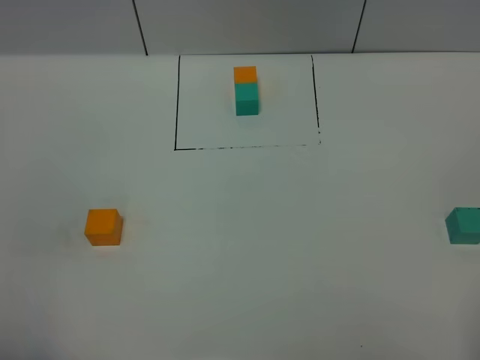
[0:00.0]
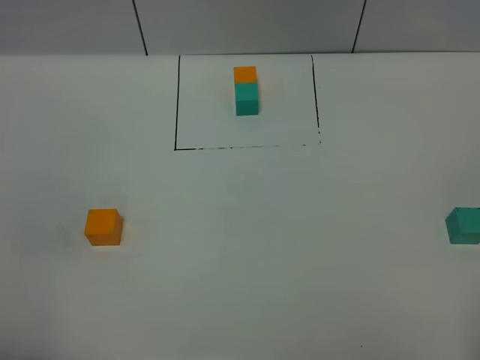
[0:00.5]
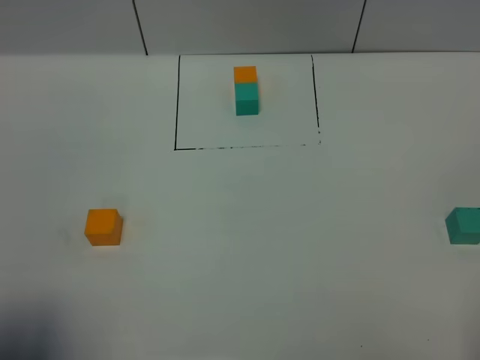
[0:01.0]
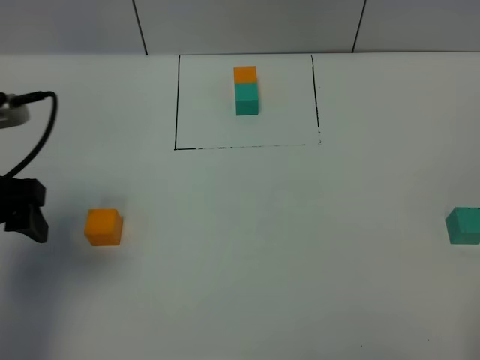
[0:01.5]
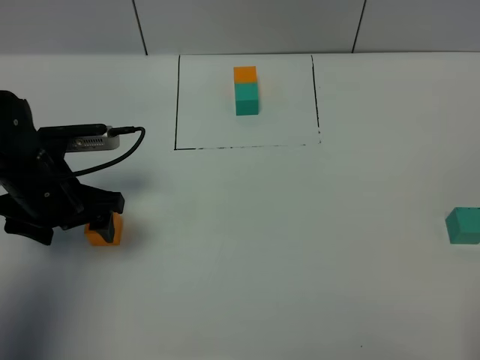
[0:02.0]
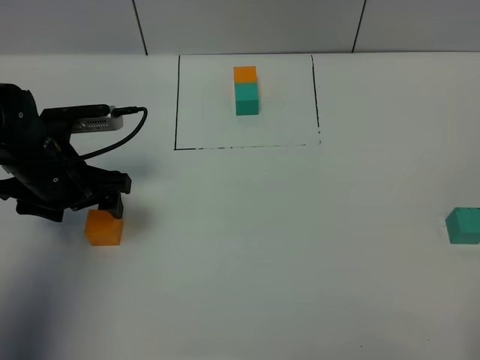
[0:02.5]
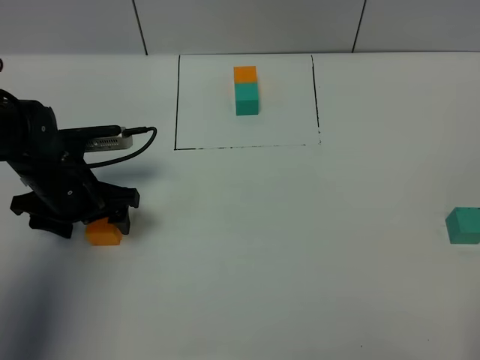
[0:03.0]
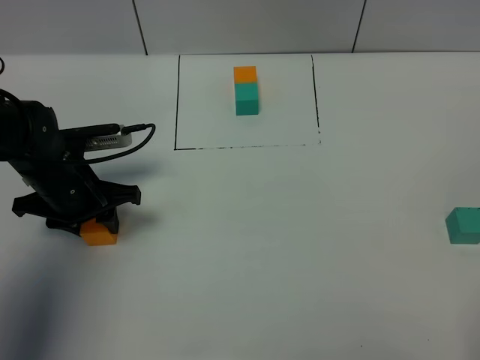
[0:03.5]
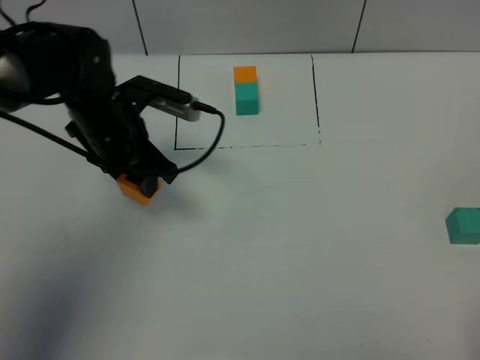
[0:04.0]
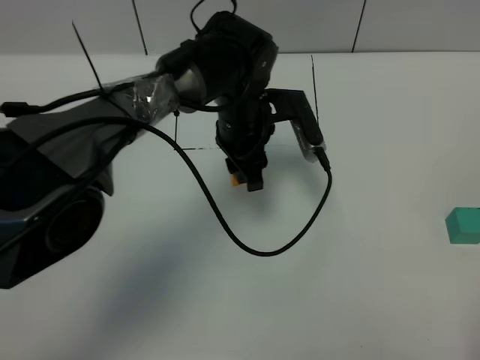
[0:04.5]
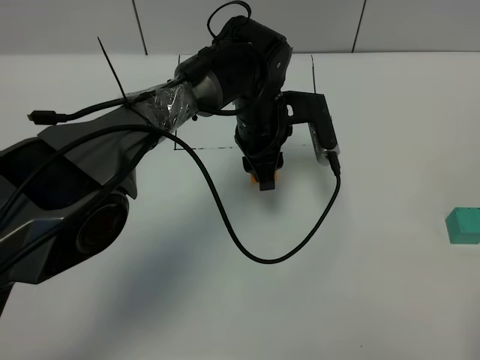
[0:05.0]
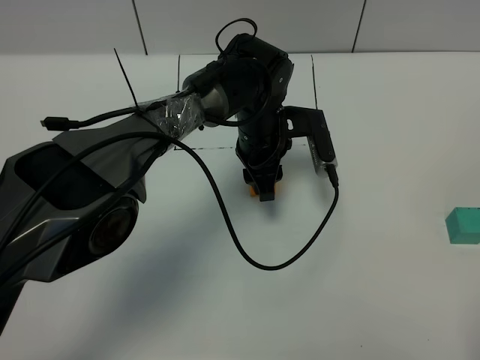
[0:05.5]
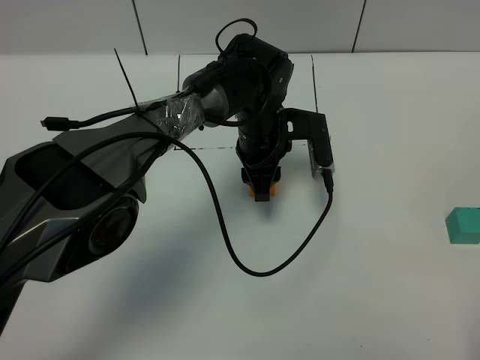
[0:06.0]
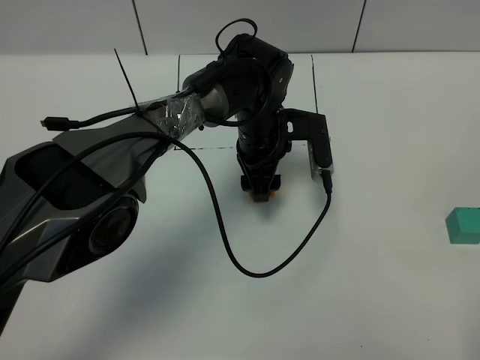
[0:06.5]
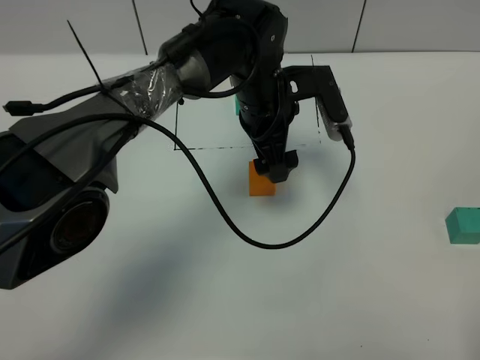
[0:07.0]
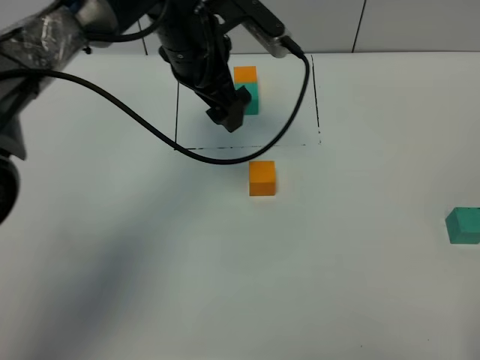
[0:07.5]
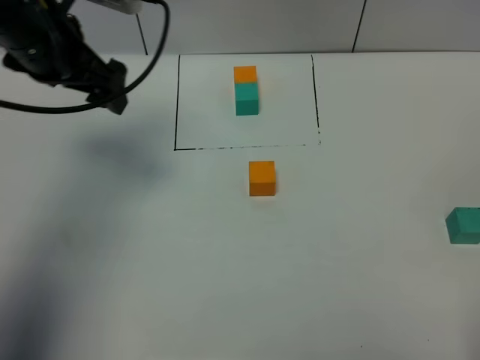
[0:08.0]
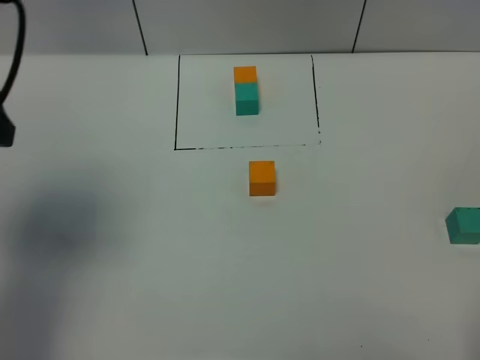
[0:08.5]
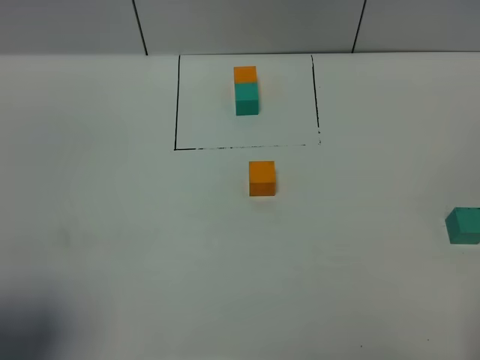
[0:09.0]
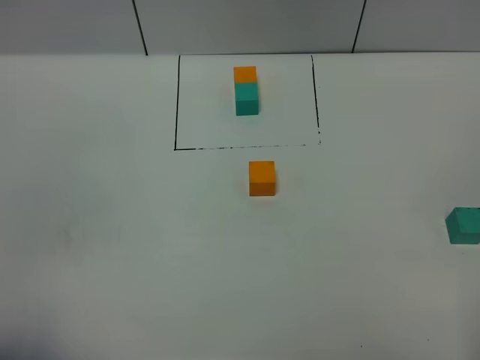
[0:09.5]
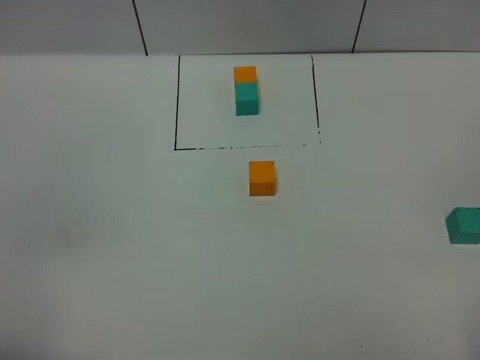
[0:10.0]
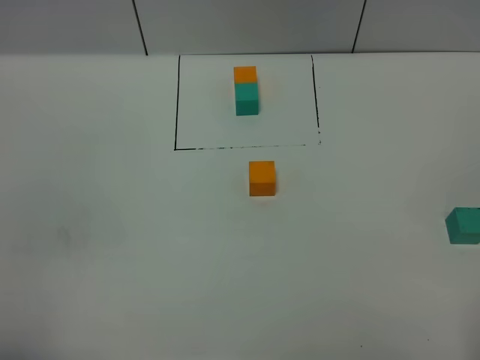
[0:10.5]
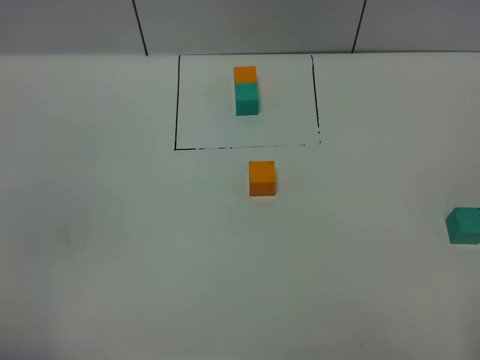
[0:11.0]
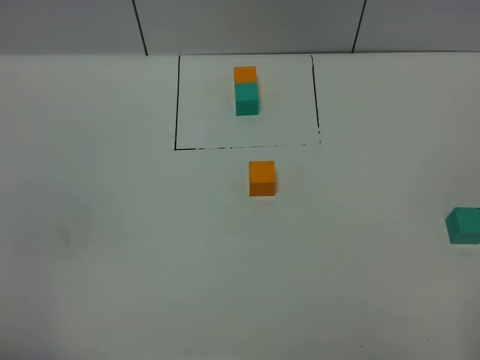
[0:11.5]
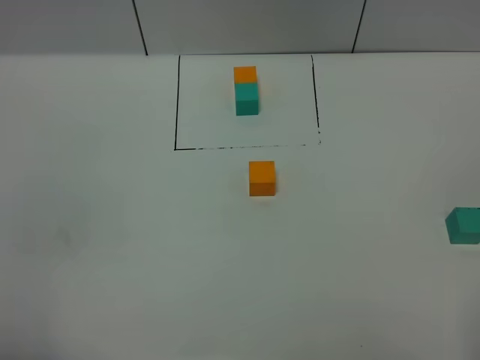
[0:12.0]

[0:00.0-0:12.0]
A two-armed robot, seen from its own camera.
Task of the whole recording: According to the building block template in front, assemble the scattered blocks together.
Step, 0:01.5 to 0:07.0: Put the orange cube in the center of the table.
0:00.0 to 0:02.0: The left gripper shifts some 30 cm forward.
0:02.0 to 0:04.0: The left gripper shifts roughly 10 cm to the right and forward, and closes up.
0:04.0 to 0:06.0: The left gripper heads to the right, covering about 15 cm.
0:06.0 to 0:08.0: The left gripper is displaced to the left and upward by about 30 cm, and opens its fingers.
0:08.0 to 0:10.0: The left gripper moves backward, roughly 40 cm.

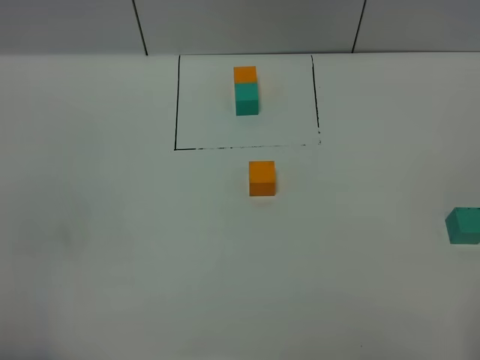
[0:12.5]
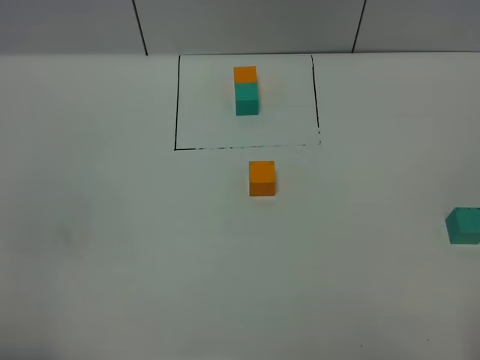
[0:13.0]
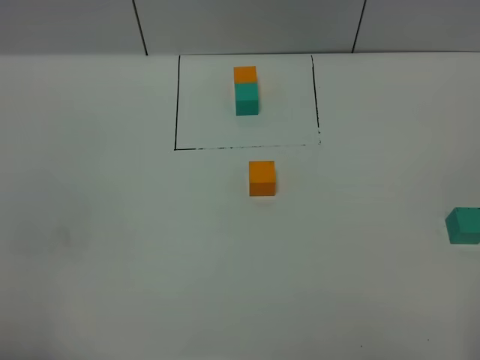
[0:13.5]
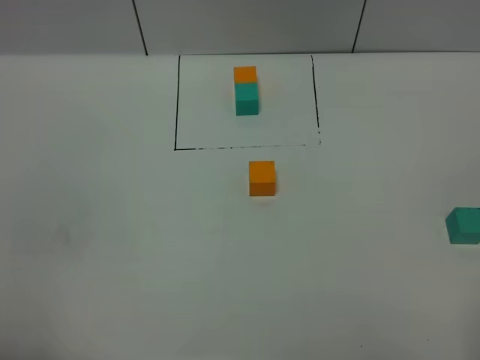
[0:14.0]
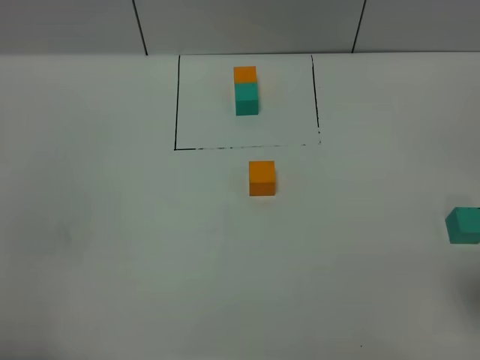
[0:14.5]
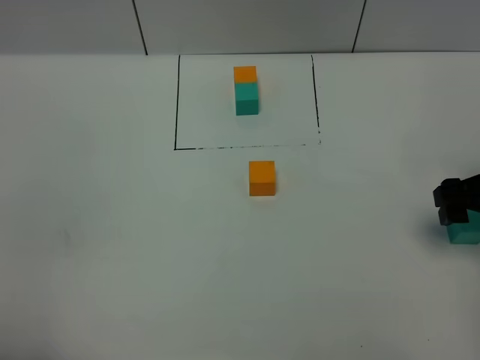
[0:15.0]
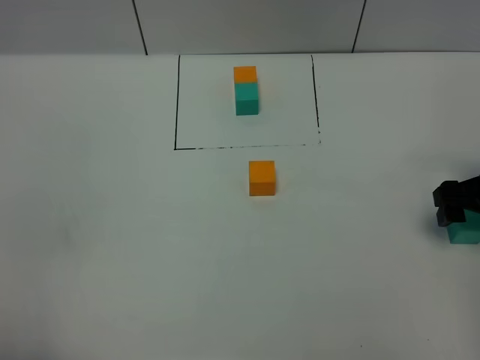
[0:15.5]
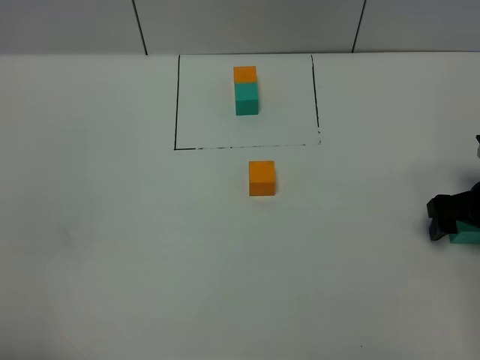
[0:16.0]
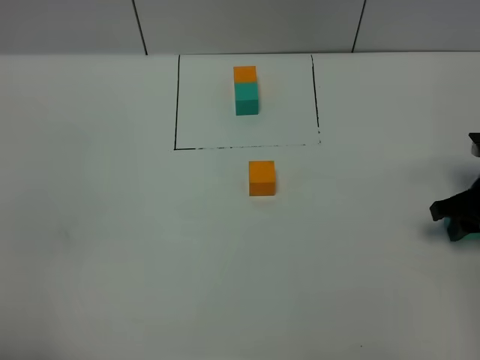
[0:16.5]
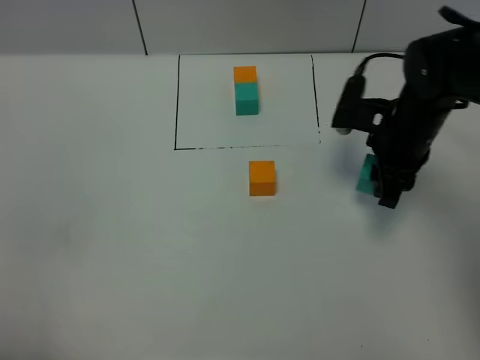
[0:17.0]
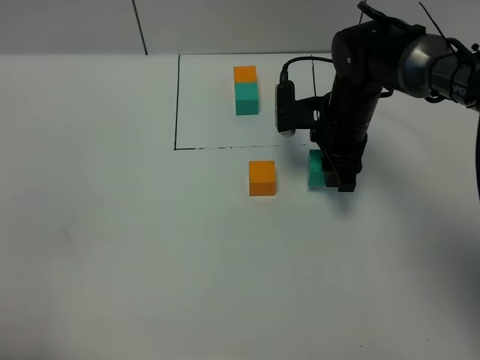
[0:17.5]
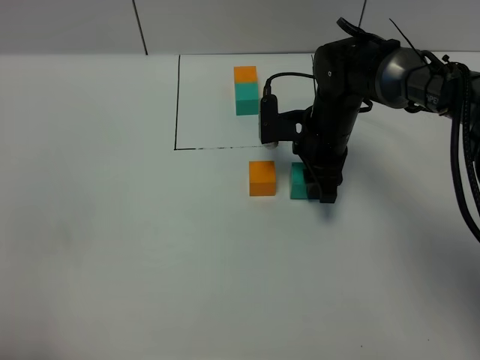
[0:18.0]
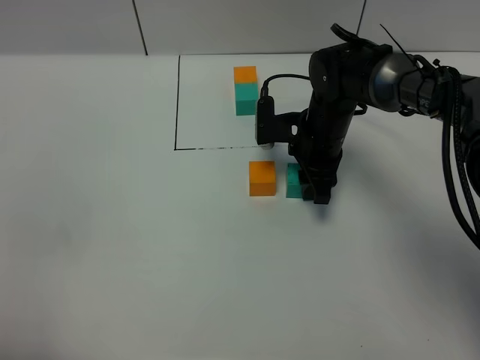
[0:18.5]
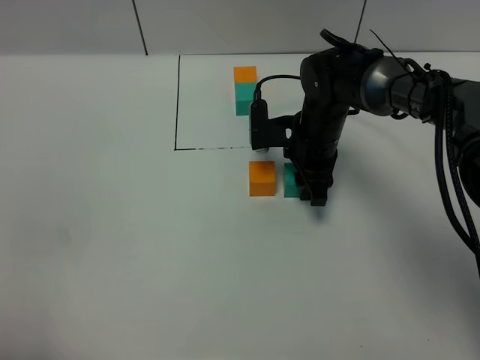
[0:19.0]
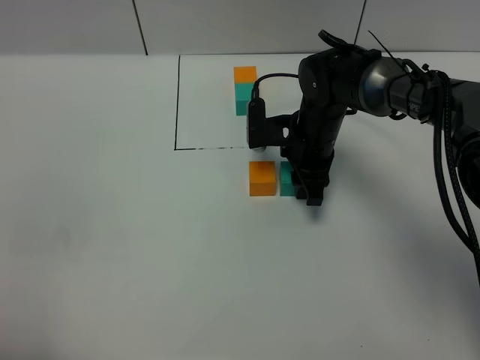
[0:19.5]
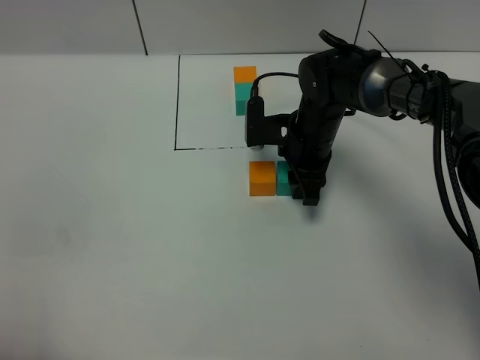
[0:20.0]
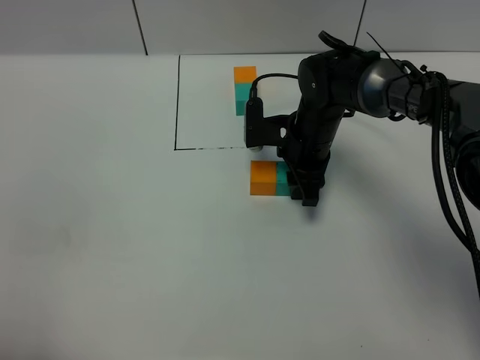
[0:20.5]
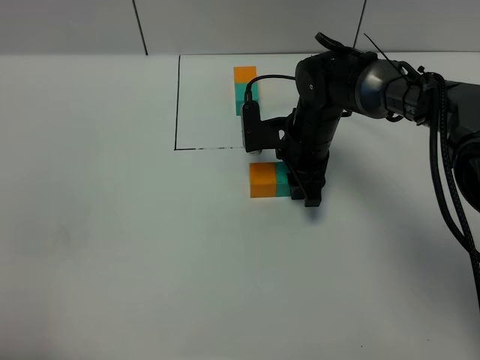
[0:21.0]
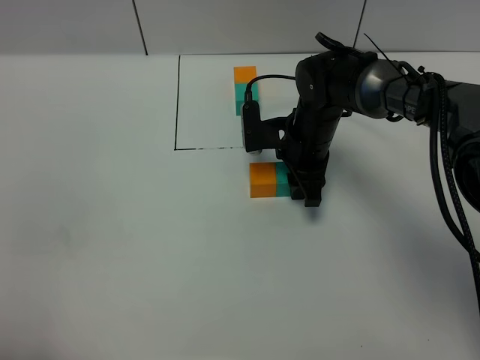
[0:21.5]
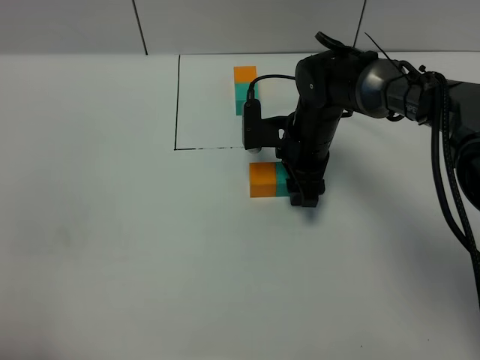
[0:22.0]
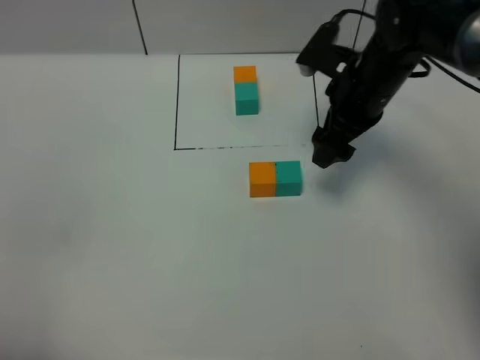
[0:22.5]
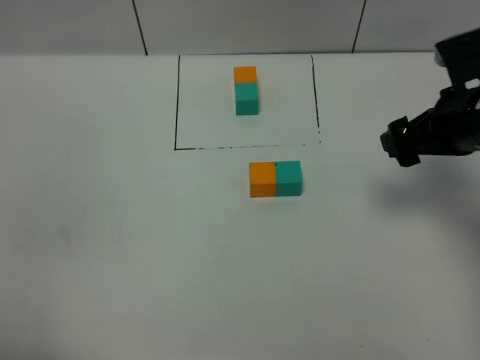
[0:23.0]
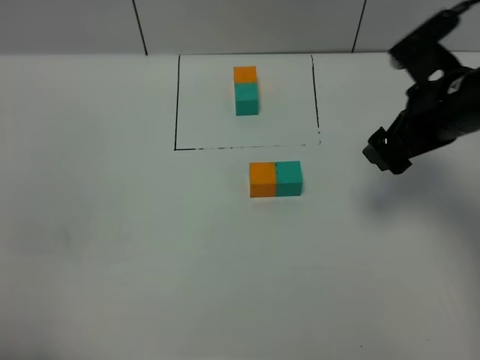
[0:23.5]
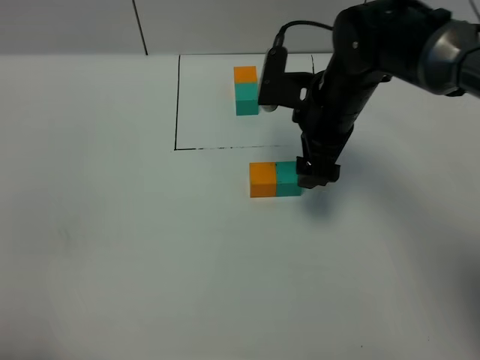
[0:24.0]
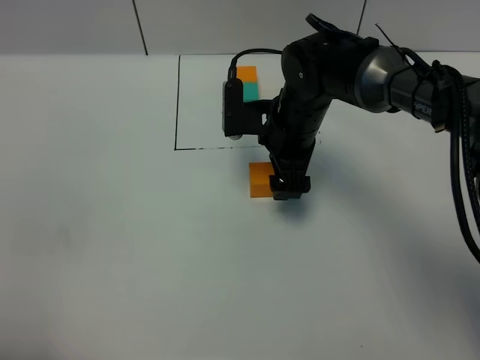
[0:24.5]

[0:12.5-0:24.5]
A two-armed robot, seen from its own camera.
Task of the whole recording: According to the building block template in front, assemble the scattered blocks together.
Step, 0:12.5 to 0:22.5: Put the green cube on the right of the orange cube.
0:14.5 to 0:16.5: The right gripper goes some 20 cm forward and downward, and closes up.
0:16.5 to 0:18.5: The right gripper travels to the left and forward by some 25 cm.
0:18.5 to 0:20.5: The grippers move only a little.
0:20.5 to 0:22.5: The right gripper is displaced upward and to the right by some 10 cm, and opens up.
0:22.5 to 0:24.5: The right gripper shifts some 10 cm to the left.

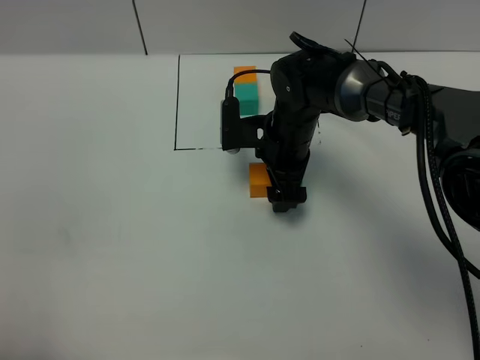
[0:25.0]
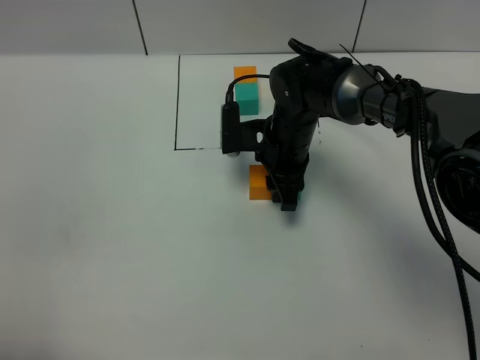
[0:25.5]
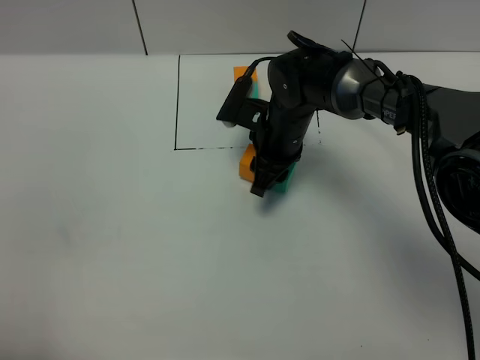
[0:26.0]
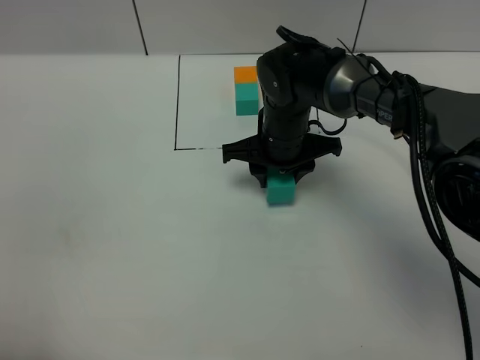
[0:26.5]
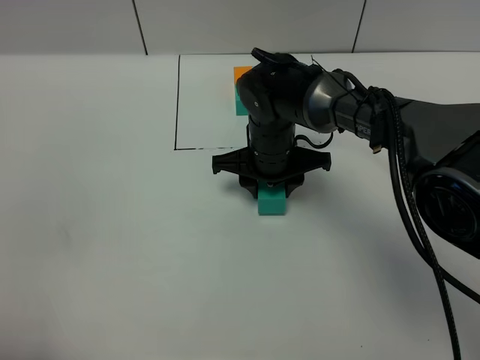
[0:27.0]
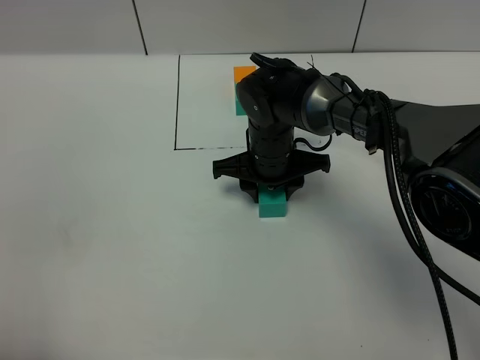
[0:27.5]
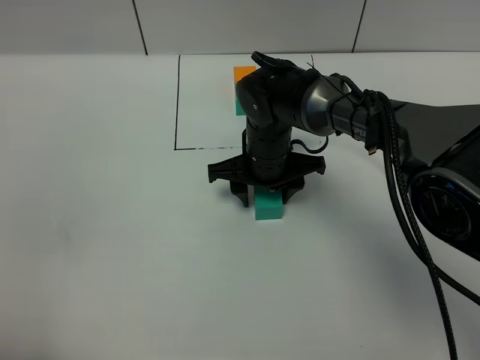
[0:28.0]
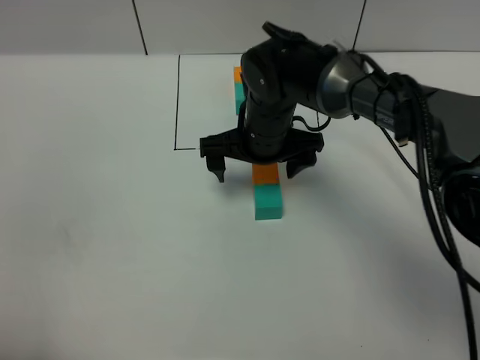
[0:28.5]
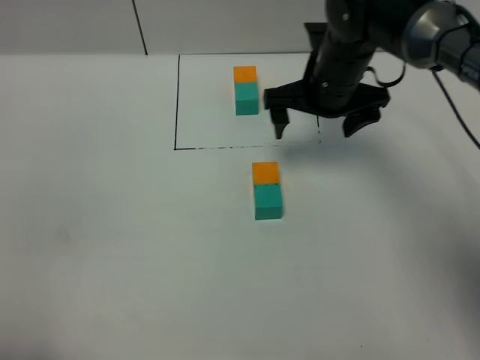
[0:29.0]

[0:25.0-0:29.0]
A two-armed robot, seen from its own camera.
Task of the whole recording: According to the building block template in front, assemble the scattered blocks together.
Step, 0:25.0 to 0:28.5: Adjust the pose of the building blocks.
0:25.0 to 0:27.0: The right gripper closes its fingers.
0:27.0 to 0:29.0: The right gripper goes about 15 cm to the right and upward, and opens its fingers.
